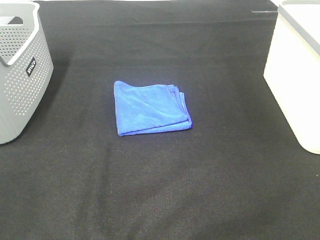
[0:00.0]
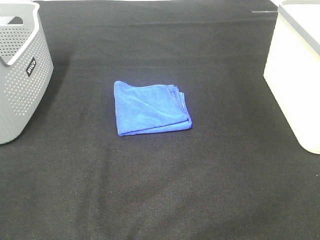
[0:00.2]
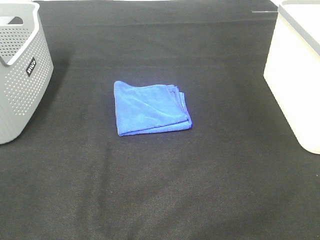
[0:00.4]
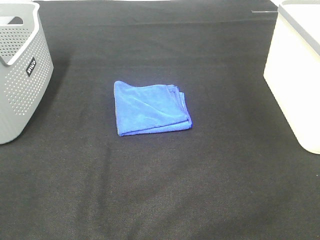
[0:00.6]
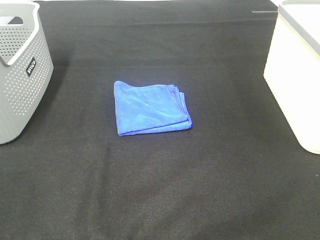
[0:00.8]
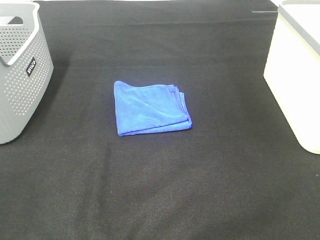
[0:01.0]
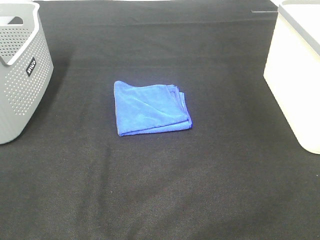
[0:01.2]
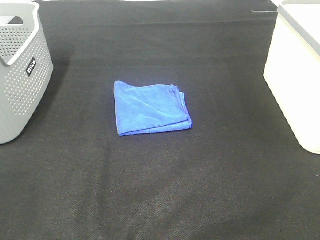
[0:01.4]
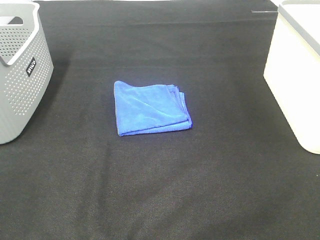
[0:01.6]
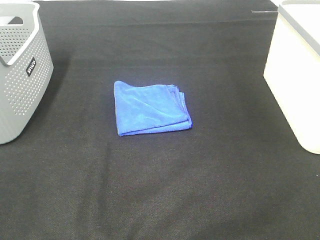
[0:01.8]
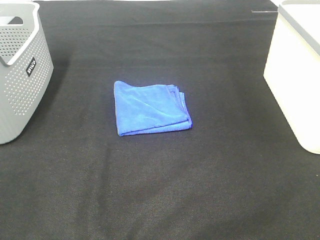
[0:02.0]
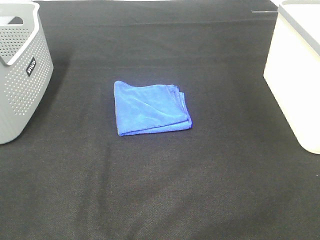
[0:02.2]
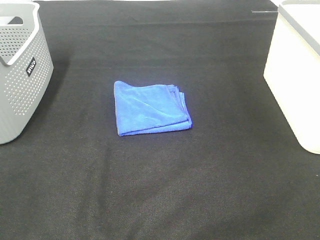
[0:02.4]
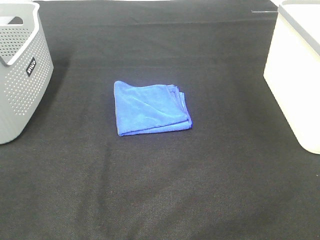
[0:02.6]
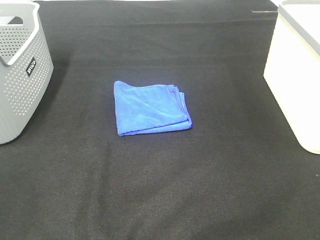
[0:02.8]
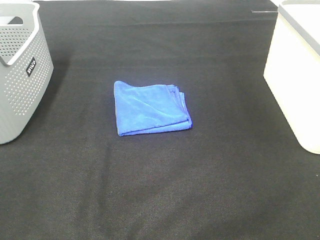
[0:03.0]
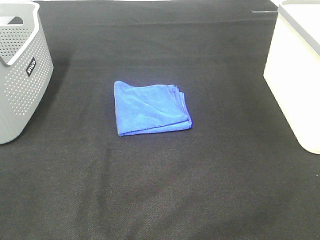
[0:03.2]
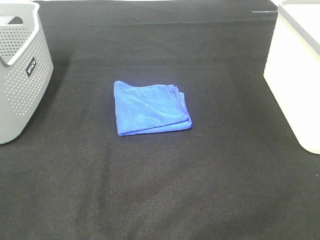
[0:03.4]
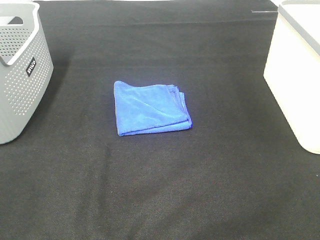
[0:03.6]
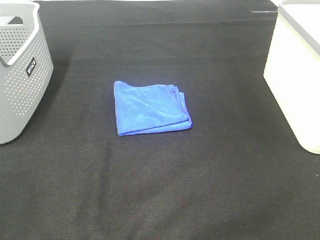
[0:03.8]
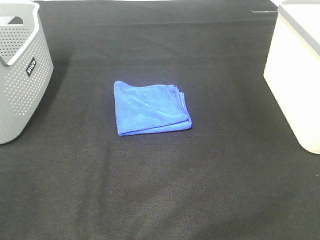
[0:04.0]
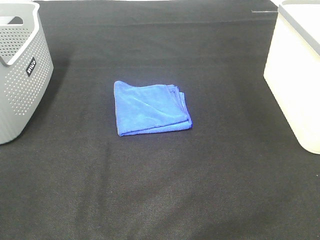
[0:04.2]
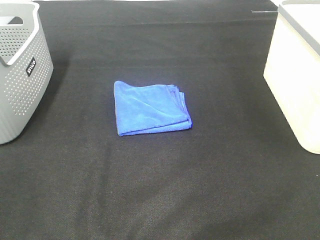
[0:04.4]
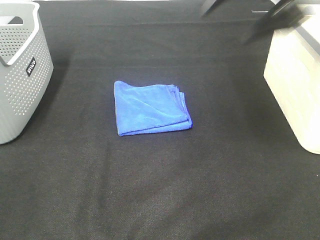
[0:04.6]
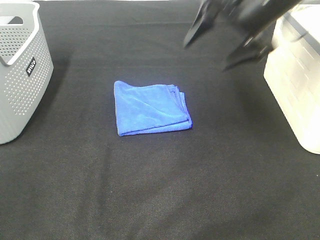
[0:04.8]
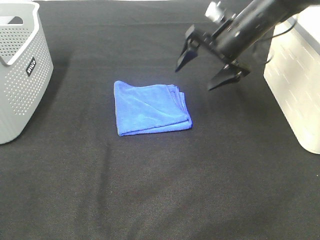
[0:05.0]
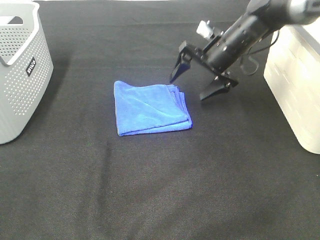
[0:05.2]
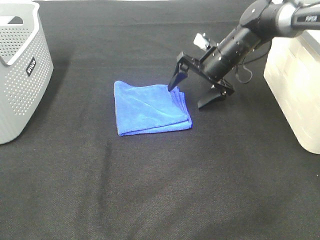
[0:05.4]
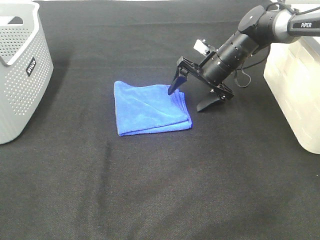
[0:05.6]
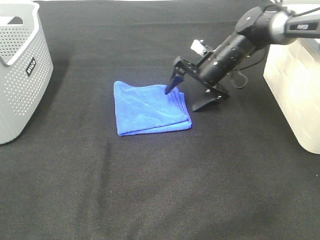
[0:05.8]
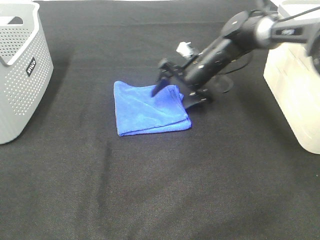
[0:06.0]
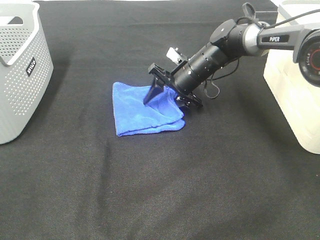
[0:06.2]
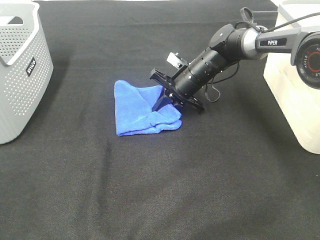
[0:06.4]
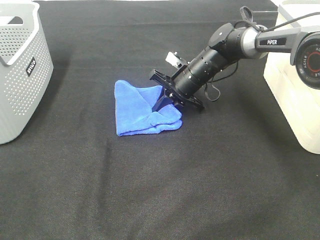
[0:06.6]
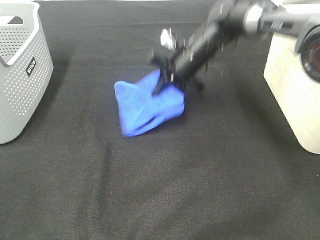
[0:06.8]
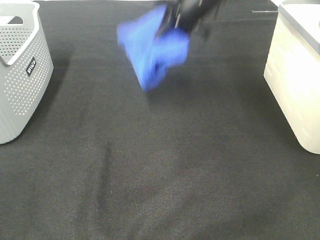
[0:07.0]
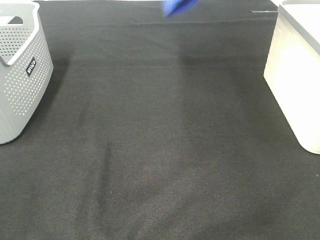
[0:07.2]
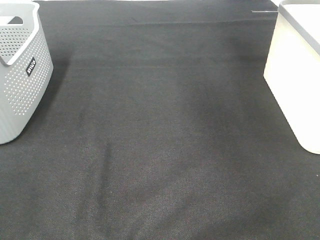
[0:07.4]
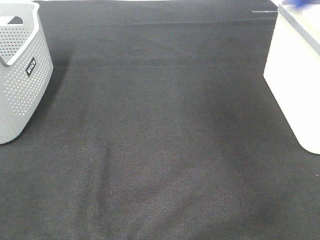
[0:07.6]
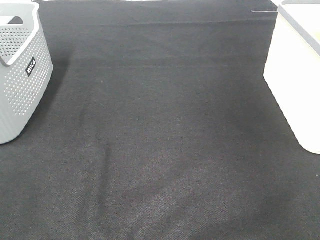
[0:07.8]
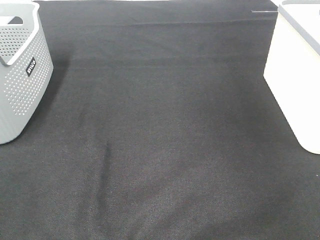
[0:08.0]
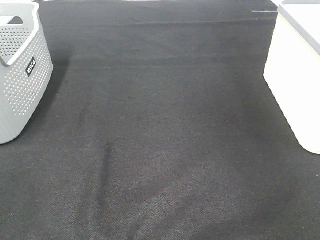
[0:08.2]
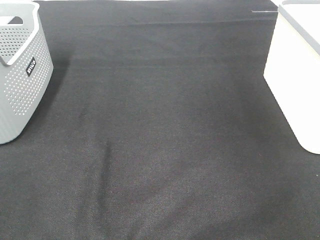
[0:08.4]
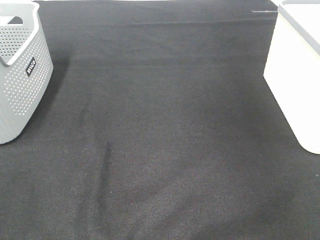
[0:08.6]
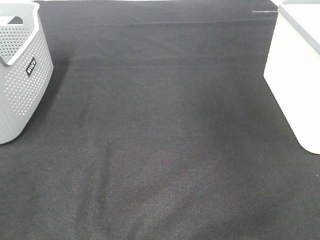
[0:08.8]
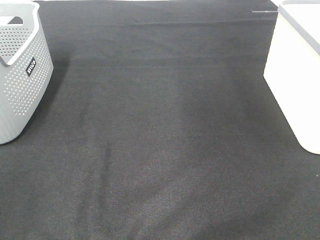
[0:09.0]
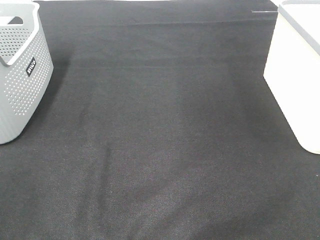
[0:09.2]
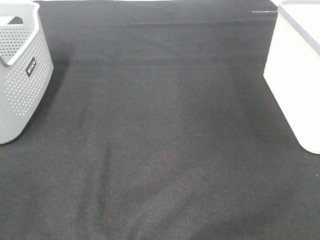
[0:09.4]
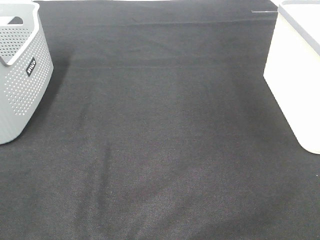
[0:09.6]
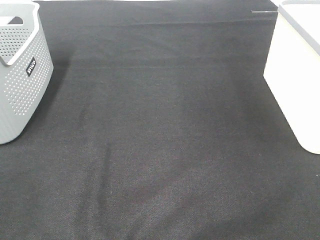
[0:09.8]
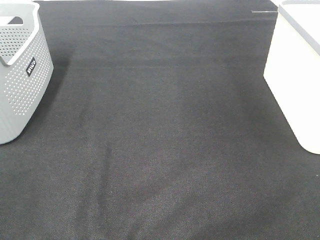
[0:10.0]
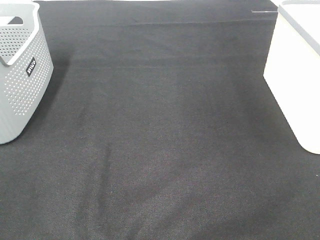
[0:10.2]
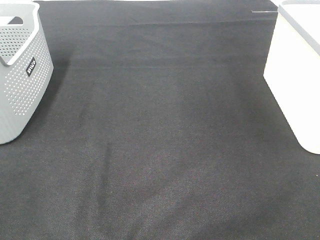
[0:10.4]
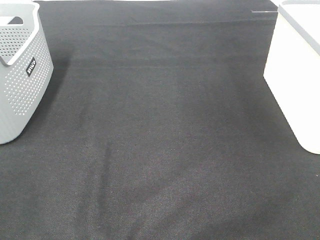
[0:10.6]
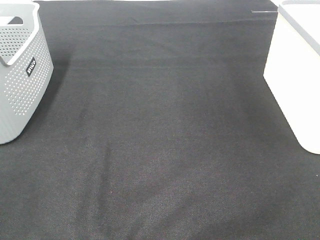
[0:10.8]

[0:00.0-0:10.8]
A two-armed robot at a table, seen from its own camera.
Step, 0:00.0 to 0:06.6: Right hand: grab the folded blue towel.
Step, 0:06.8 to 0:08.4: Right hand: place the blue towel in right basket.
0:00.0 to 0:03.0: Neither gripper changes place.
0:03.0 to 0:04.6: The right gripper moves forward, about 35 cm.
0:04.6 to 0:06.2: The right gripper is displaced downward, forward and to the left by roughly 25 cm, and closes up.
0:06.2 to 0:07.8: The right gripper moves to the right and upward, about 40 cm, and closes.

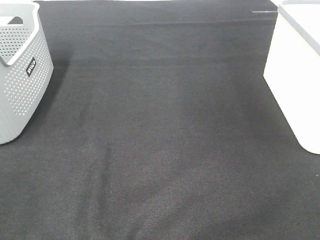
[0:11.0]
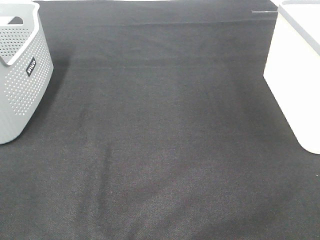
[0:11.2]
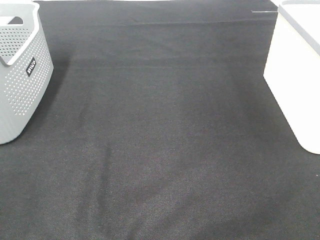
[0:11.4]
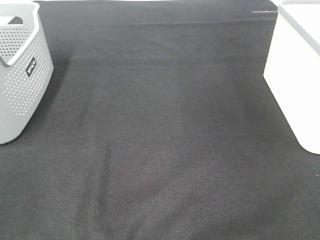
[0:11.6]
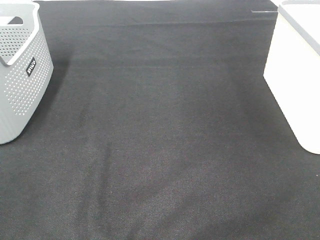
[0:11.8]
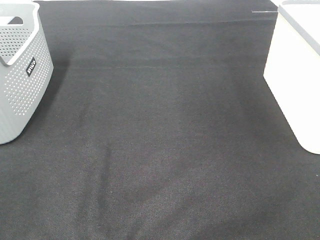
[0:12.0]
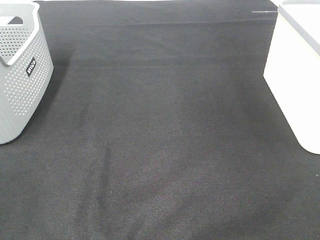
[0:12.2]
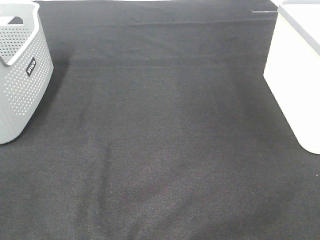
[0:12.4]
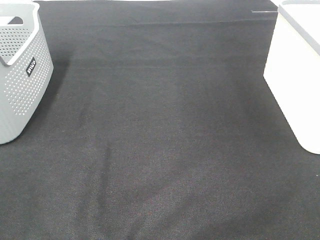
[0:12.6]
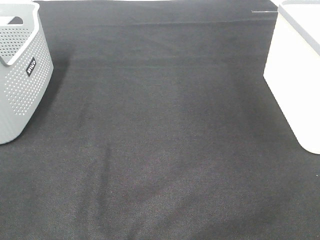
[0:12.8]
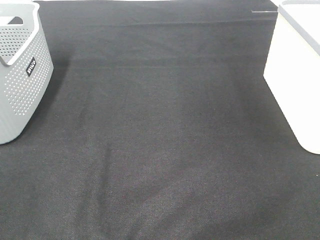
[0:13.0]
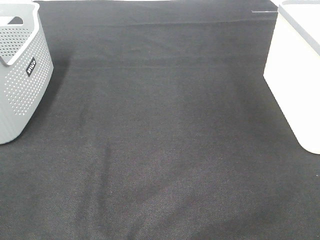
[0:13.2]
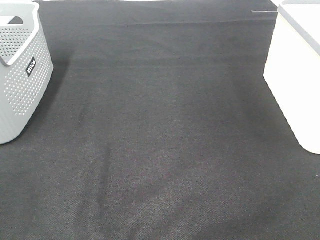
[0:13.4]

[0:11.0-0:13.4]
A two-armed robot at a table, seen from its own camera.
0:11.0 to 0:13.4: The two grippers keep their place.

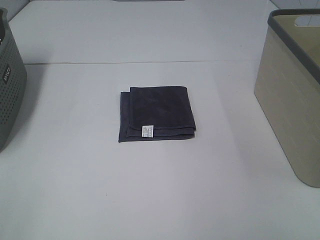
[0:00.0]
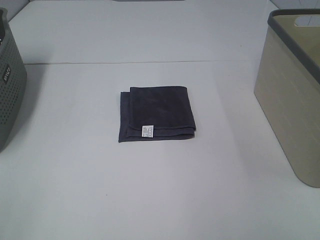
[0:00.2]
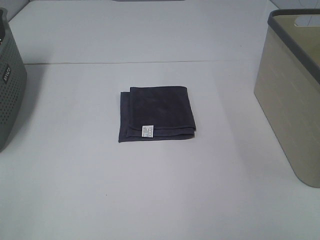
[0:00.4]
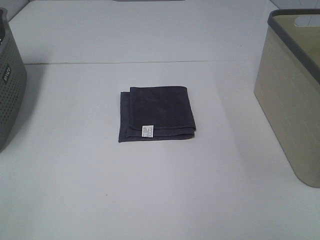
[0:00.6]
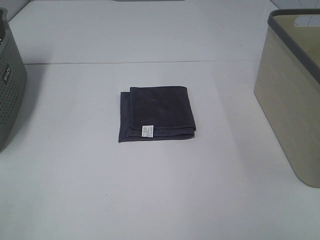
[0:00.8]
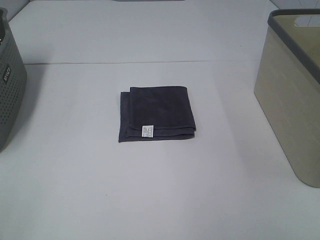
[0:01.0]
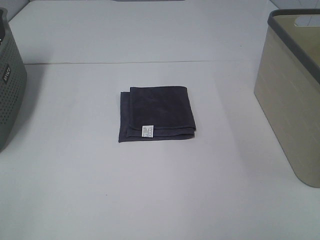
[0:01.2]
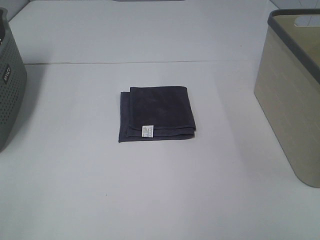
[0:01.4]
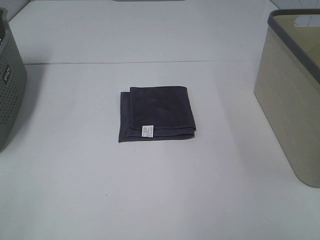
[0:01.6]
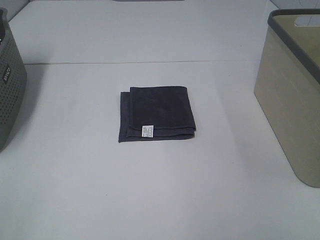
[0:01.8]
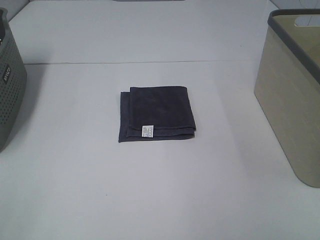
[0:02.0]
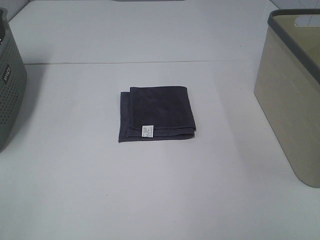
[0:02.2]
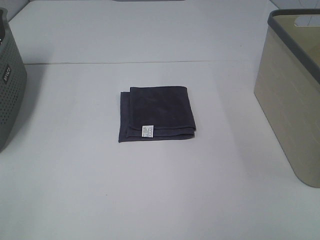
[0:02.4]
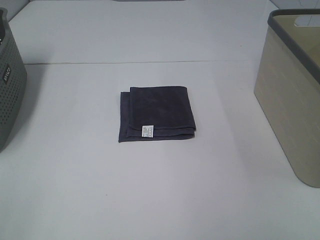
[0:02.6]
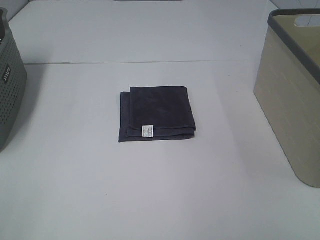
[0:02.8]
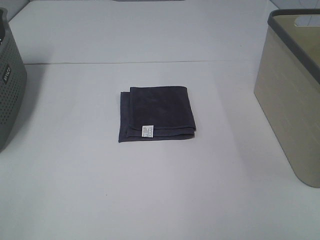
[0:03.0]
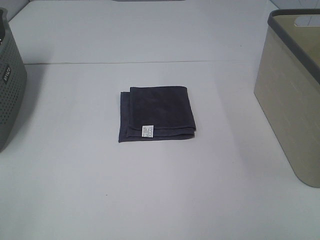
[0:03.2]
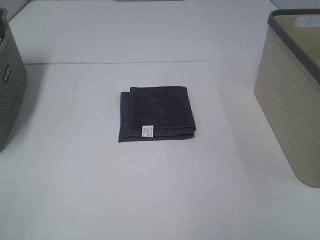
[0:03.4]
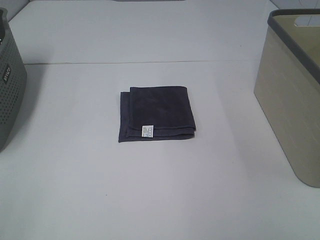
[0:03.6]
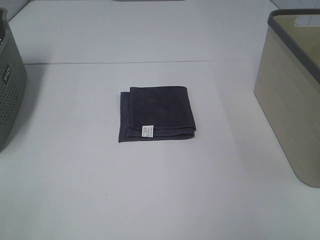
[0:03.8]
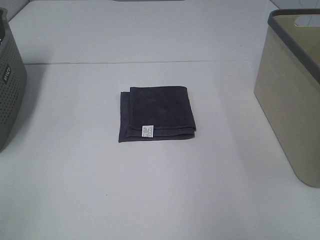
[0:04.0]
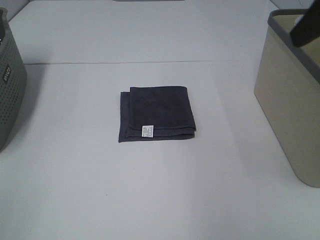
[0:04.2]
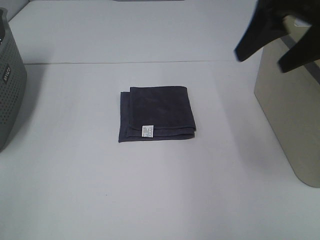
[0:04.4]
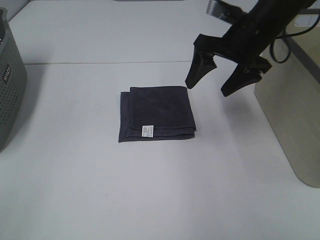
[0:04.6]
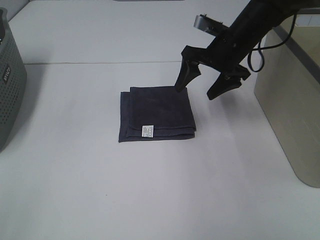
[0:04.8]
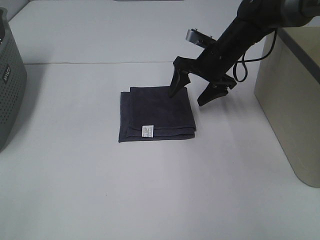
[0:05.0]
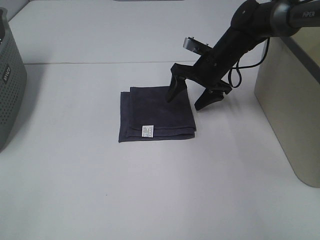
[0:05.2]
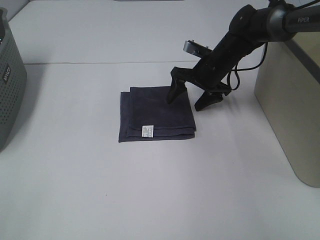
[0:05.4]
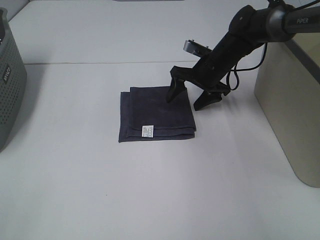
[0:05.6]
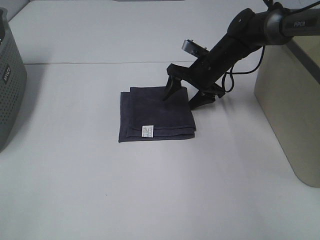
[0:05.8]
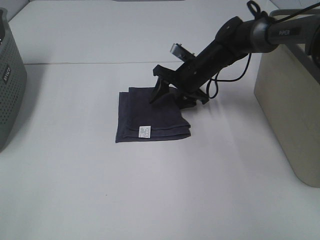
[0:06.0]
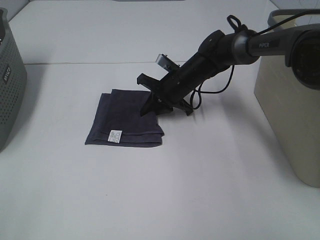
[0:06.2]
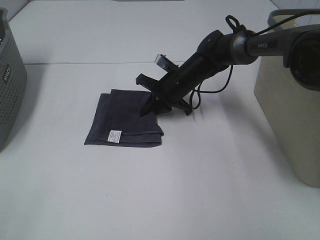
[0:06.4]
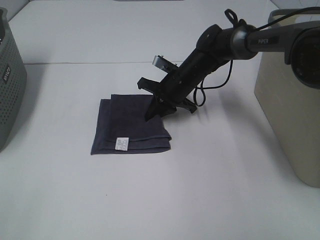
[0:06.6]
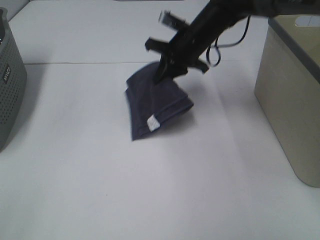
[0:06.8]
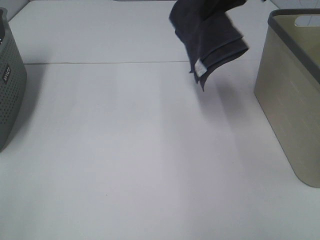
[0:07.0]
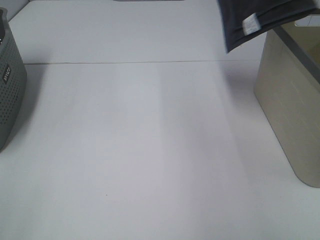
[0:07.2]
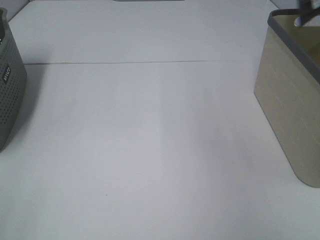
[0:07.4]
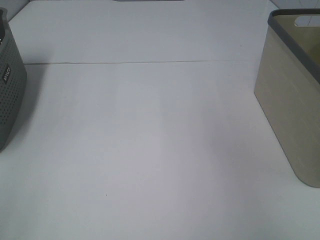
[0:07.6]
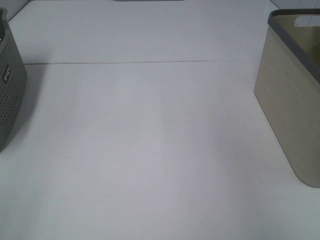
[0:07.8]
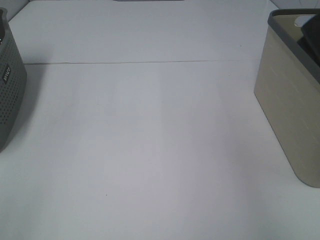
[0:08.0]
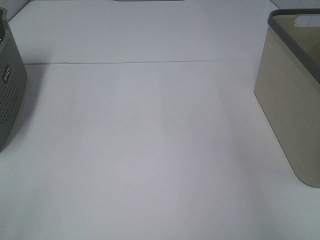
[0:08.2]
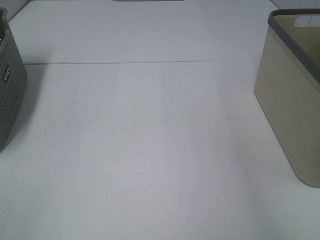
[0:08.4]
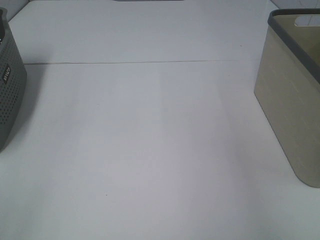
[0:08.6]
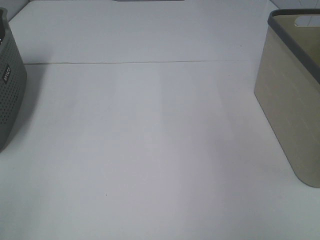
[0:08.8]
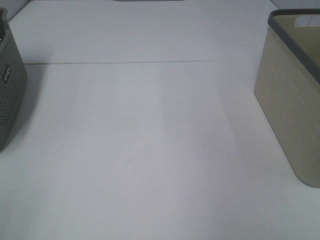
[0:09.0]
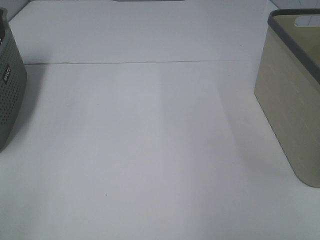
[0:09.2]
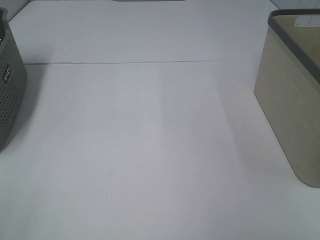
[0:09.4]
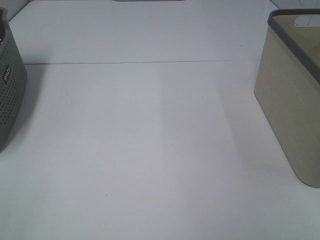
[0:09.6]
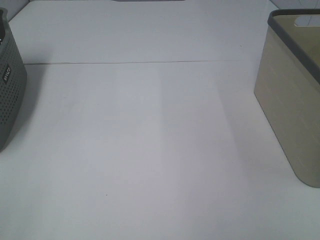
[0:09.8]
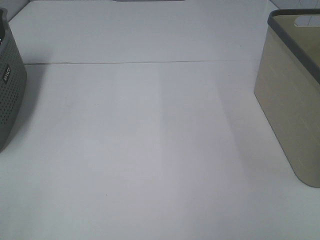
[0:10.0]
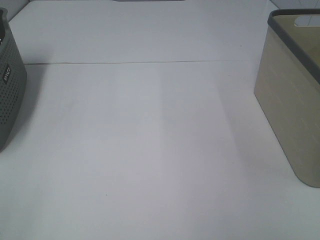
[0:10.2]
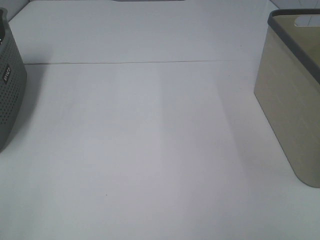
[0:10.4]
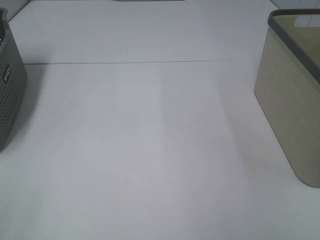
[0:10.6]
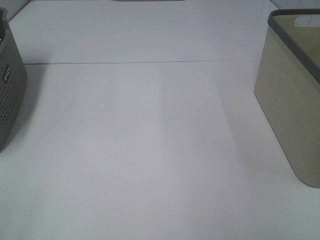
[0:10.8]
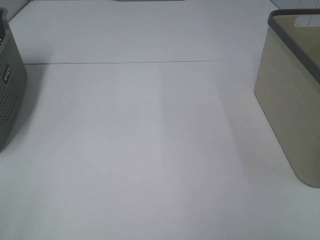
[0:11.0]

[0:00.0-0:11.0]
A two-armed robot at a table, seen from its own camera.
Step, 0:00.0 to 0:06.2: Right hand: grab the folded grey towel.
Step, 0:06.4 to 0:08.2: Right hand: place the grey towel in right basket.
0:00.0 to 0:03.2: Both grippers stay put.
0:03.2 to 0:04.8: The right gripper shifts about 40 cm forward.
0:04.8 to 0:06.2: The right gripper heads downward and to the left, covering about 15 cm, and closes up.
0:06.2 to 0:07.8: The right gripper goes approximately 50 cm upward and to the right.
